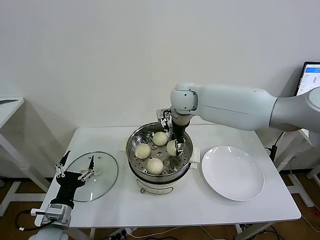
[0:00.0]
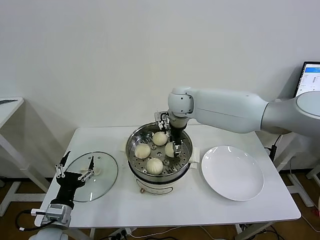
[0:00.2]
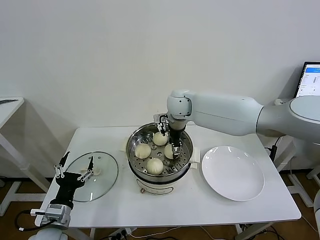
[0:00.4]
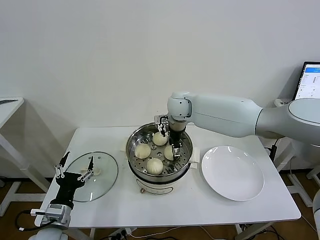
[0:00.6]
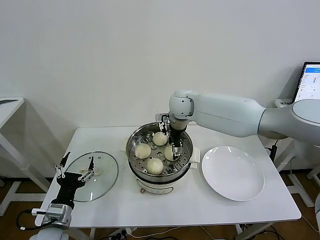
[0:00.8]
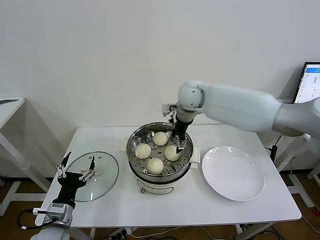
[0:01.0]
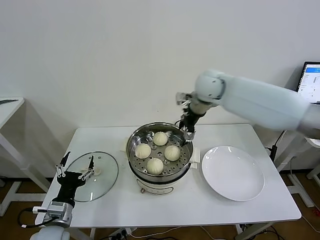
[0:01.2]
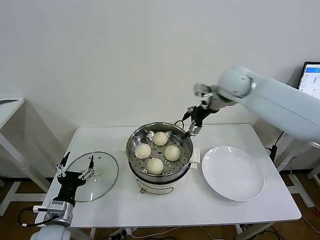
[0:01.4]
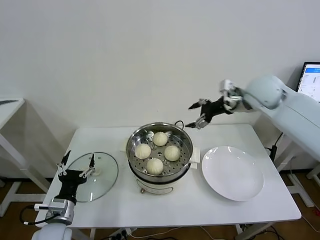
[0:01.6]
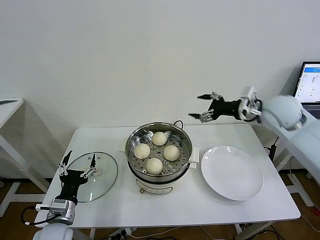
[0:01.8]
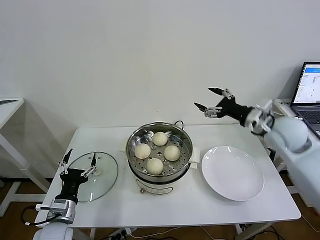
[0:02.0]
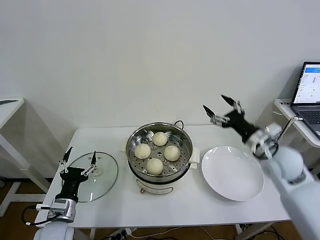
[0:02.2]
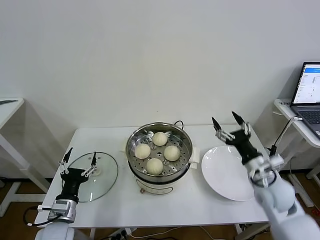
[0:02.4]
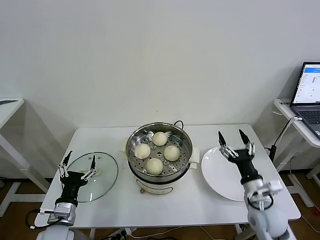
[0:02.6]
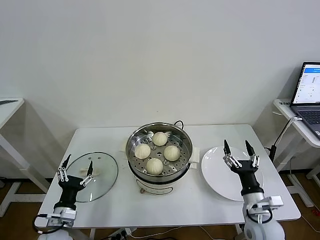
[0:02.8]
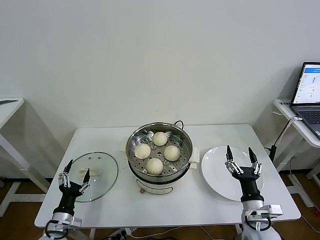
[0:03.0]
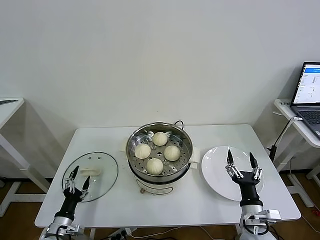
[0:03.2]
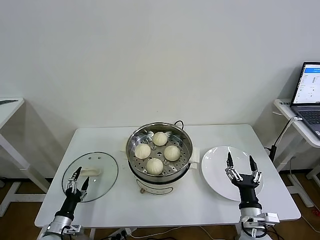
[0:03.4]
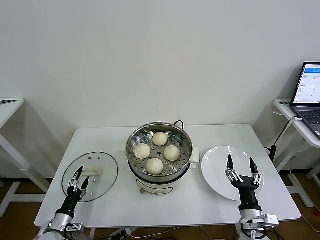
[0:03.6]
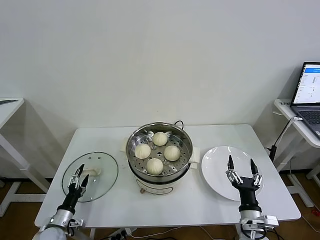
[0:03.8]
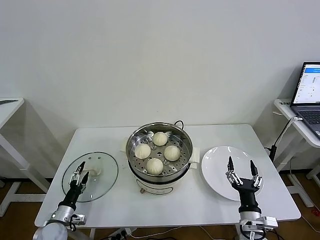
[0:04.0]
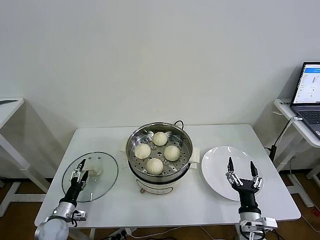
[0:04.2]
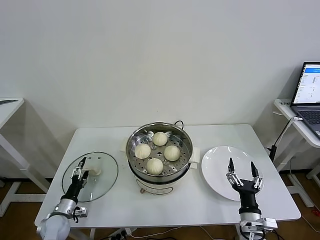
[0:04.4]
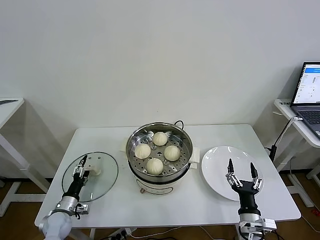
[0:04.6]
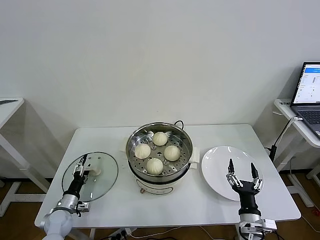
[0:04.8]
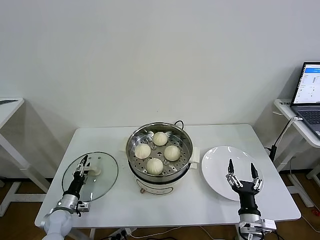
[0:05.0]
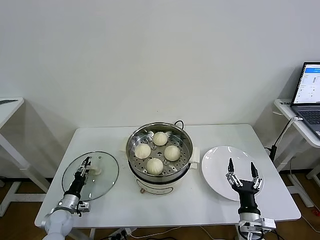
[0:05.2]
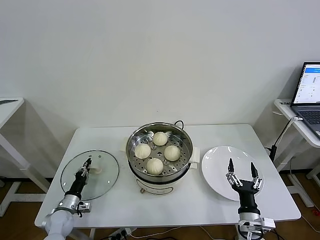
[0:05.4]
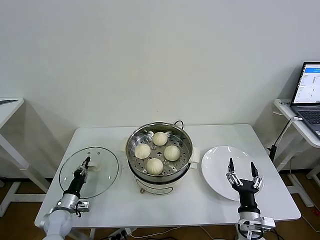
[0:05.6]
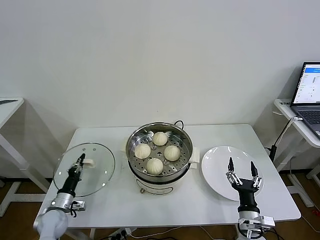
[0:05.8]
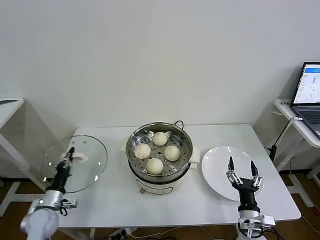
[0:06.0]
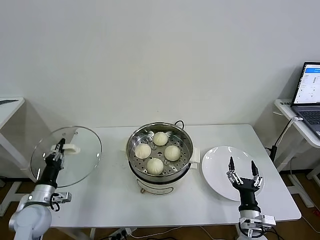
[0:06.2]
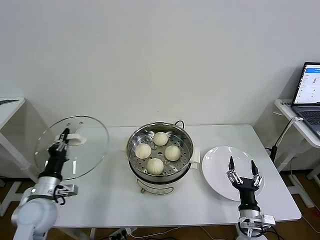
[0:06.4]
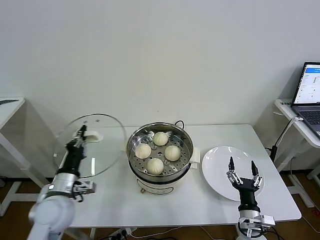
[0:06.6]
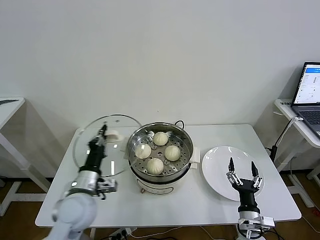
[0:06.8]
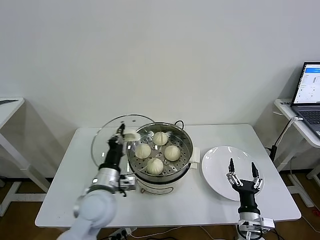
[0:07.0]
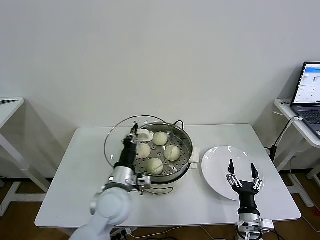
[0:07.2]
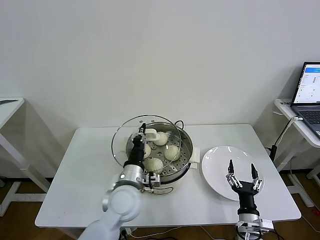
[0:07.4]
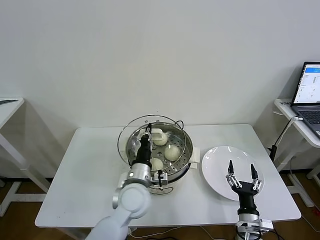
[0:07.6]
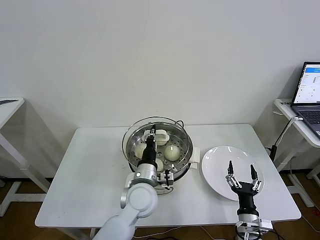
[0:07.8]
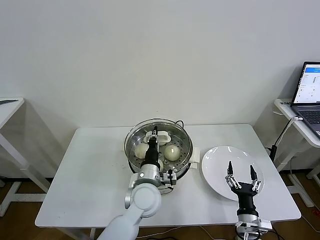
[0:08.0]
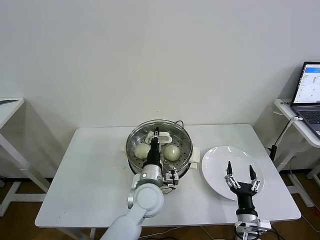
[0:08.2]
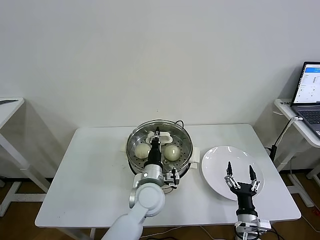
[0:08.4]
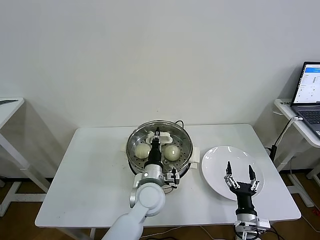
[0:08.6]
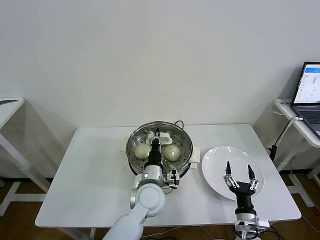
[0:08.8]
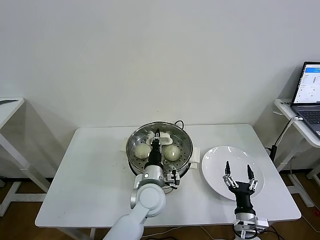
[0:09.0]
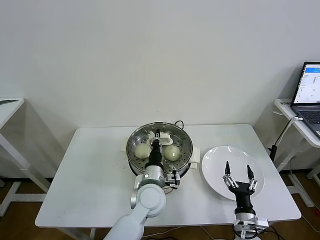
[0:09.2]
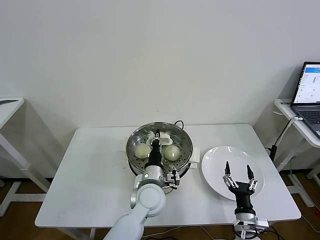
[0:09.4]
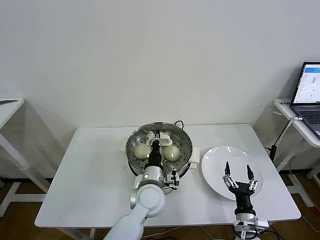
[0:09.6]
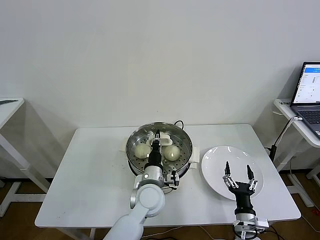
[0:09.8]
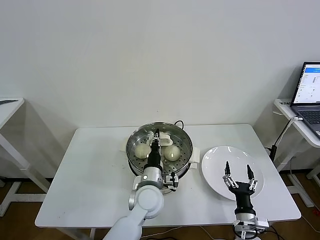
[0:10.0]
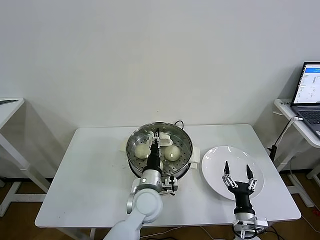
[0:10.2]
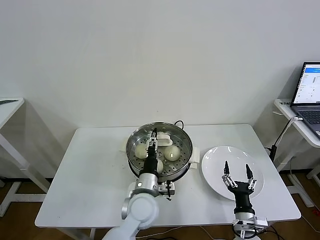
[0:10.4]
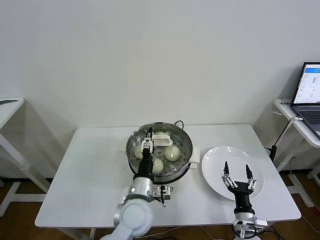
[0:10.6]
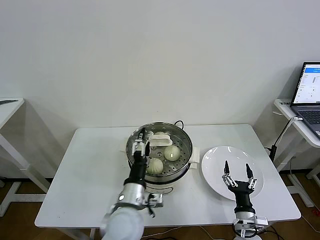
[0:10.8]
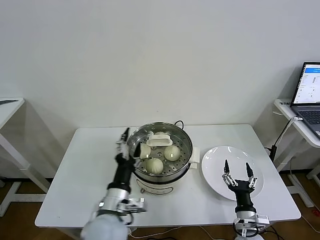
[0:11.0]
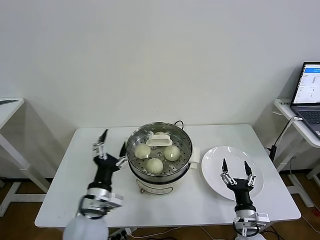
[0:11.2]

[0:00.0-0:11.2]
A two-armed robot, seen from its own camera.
Task of the whole recording: take steamed baozi put them in steamer then cover it.
Step, 0:01.0 to 0:05.4: Grasp the pot lid with left gripper.
Step, 0:05.8 to 0:10.6: Place the pot lid on the steamer with left gripper.
0:00.0 to 0:01.6: The right gripper shifts roughly 20 cm to the right, and opens up.
0:01.6 to 0:03.2: The left gripper travels downward and to the left by approximately 15 cm; the right gripper moves downward and backward, some 40 cm.
0:03.2 to 0:04.8: The left gripper moves forward, roughly 10 cm.
0:04.8 to 0:06.4: The left gripper shifts about 20 cm upward, and closes up.
0:06.4 to 0:08.0: The left gripper moves to the right, some 30 cm.
0:08.0 to 0:09.6: The grippers move only a little.
0:09.6 to 0:11.2: The left gripper heads to the left, backward and upward, covering some 20 cm, and opens its fingers.

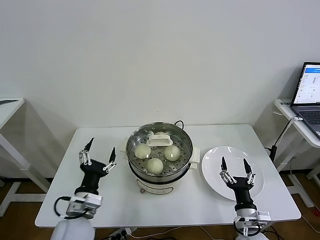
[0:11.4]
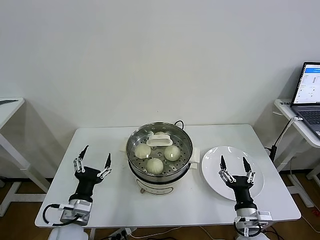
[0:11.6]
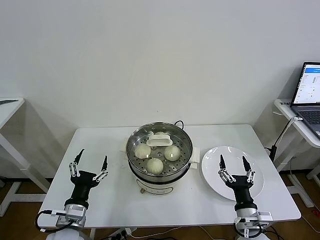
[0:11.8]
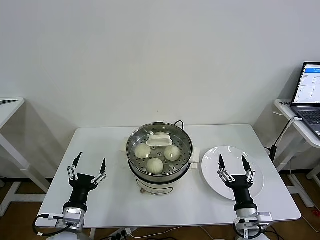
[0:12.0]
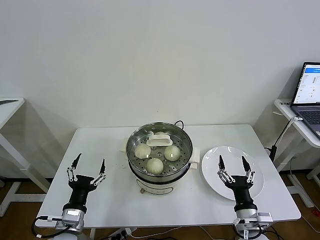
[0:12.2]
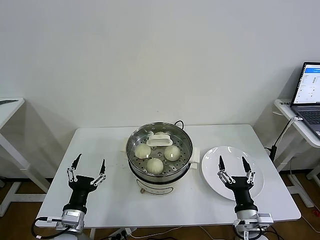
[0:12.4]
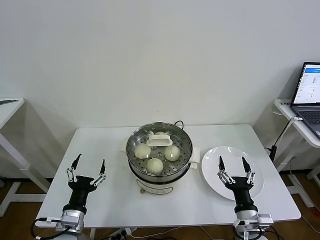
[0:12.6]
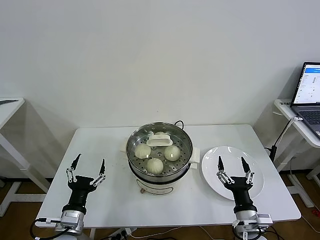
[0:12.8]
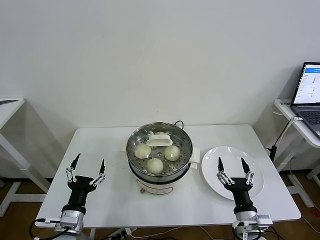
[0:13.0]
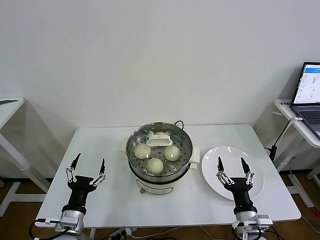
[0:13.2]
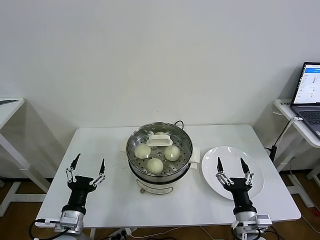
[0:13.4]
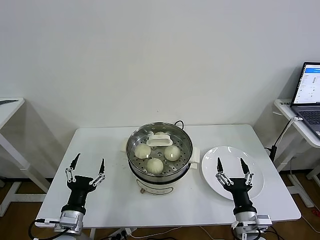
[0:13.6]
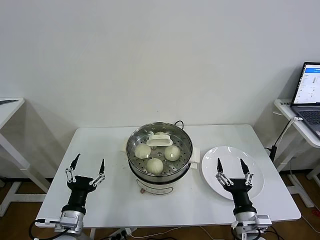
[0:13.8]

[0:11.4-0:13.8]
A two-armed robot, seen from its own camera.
Task of the whole recording: take steamed baozi put them in steamer then cover it.
0:11.4 to 0:12.6: The left gripper goes roughly 5 cm downward and to the left.
0:12.6 to 0:13.8: The two grippers keep their place.
